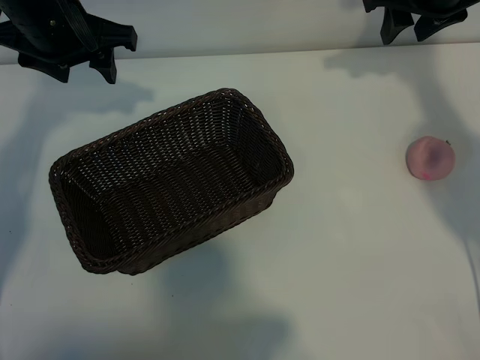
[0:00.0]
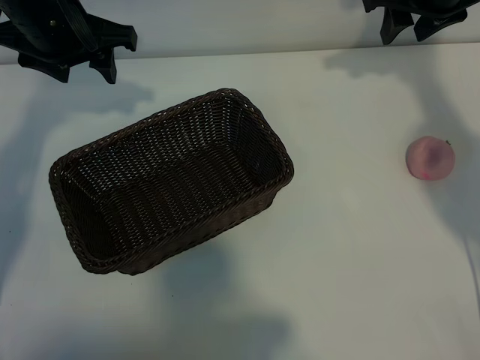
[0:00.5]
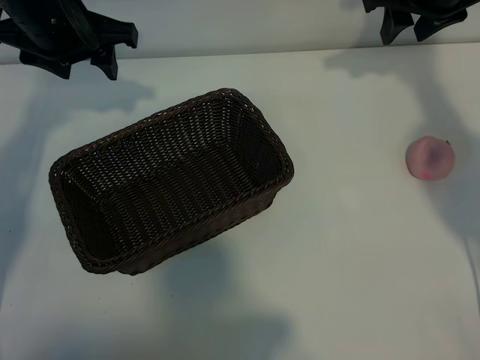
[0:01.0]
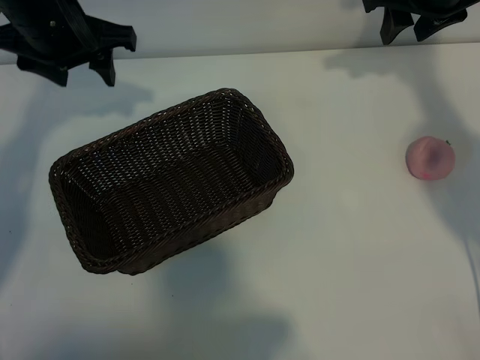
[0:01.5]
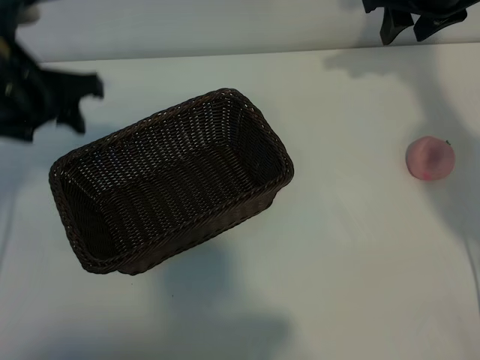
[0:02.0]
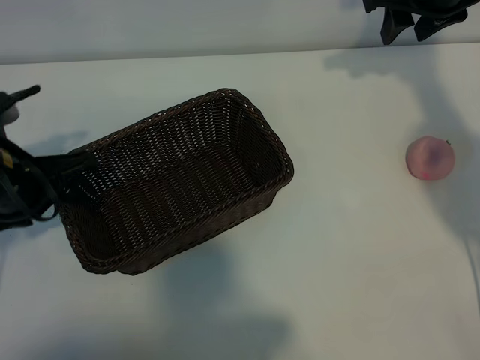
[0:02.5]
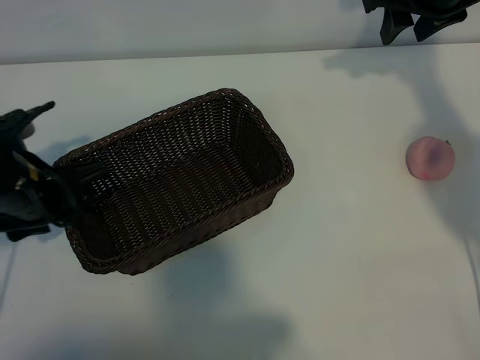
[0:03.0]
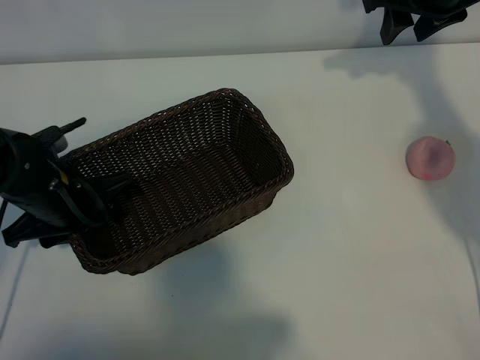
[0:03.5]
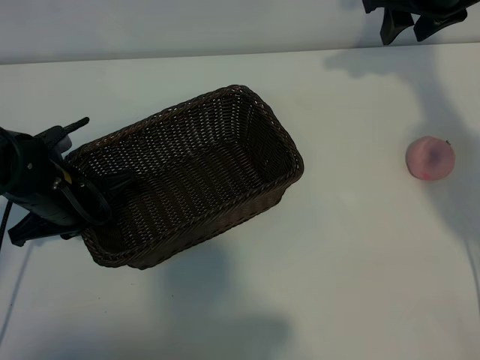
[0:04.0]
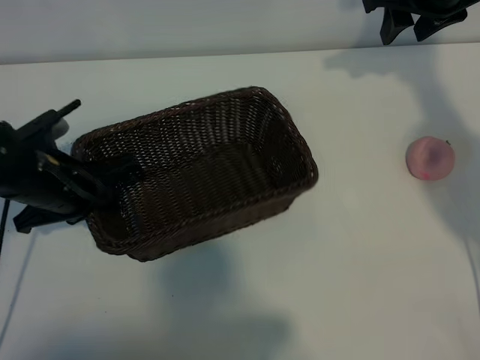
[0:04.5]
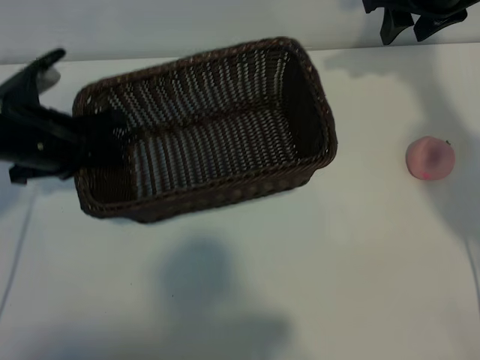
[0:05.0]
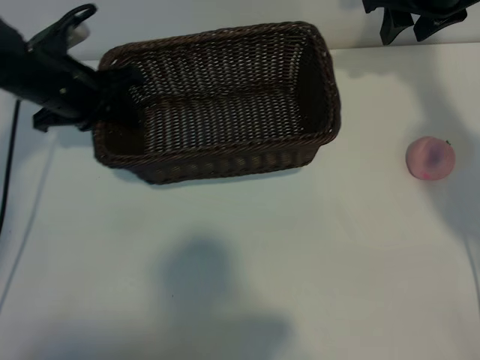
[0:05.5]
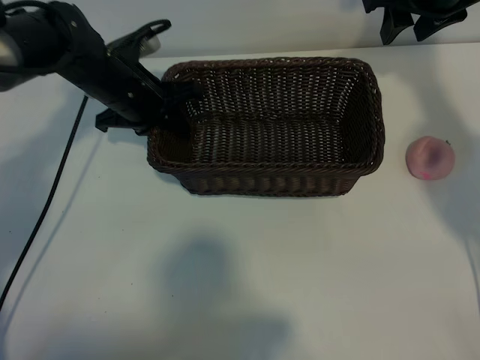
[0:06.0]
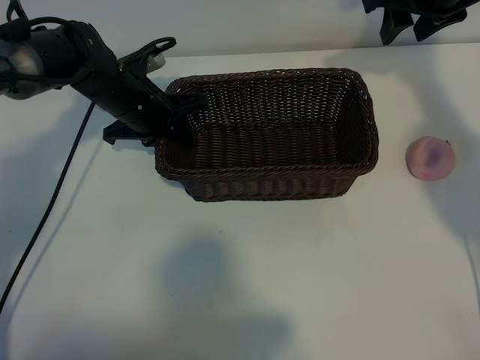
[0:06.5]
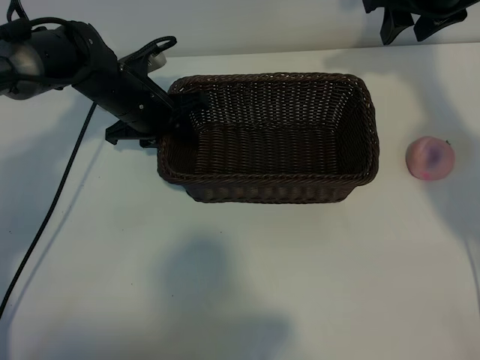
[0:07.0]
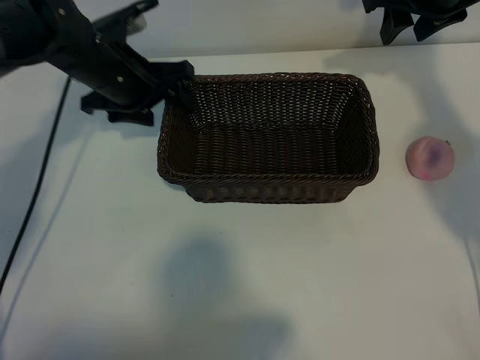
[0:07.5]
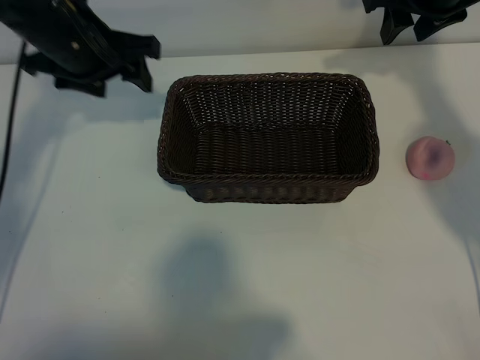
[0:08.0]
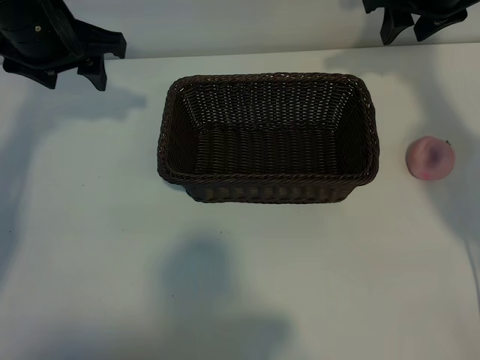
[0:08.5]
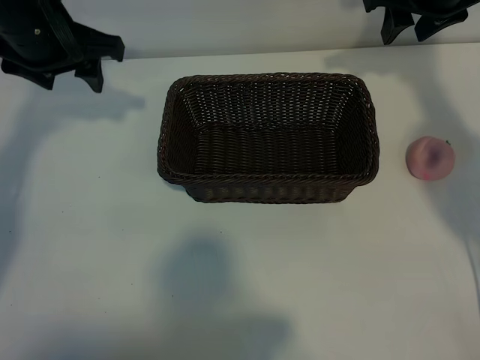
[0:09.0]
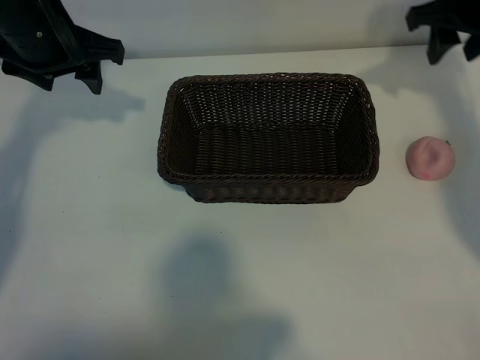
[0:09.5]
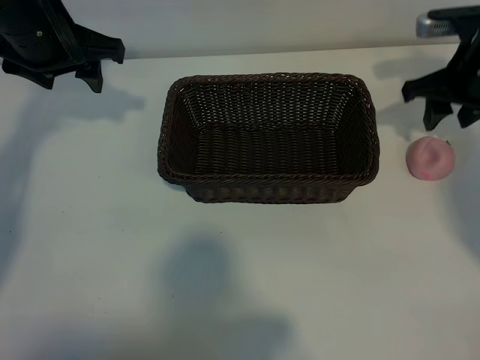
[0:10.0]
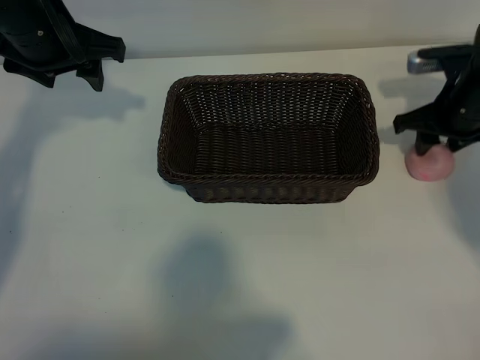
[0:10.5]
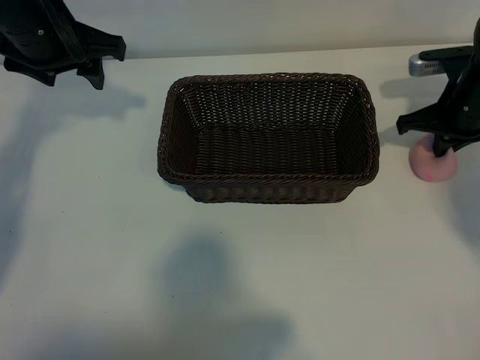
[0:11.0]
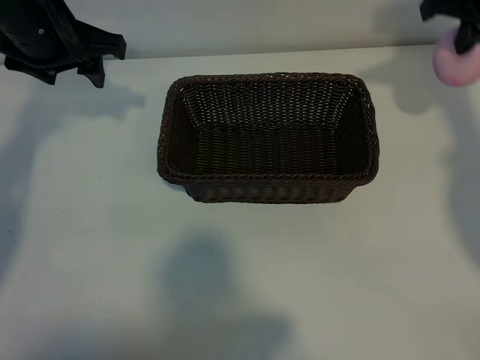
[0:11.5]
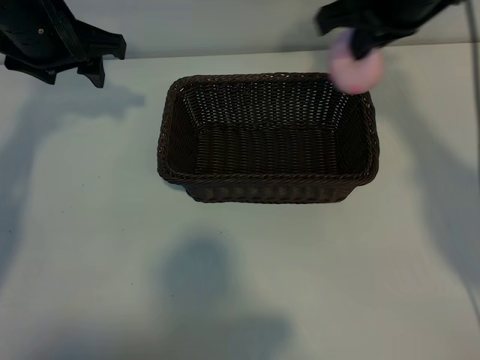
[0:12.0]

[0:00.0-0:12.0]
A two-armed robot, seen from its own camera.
Task of the whole recording: pick up the peach and put it into the basket.
Step, 0:01.5 to 0:04.0: Grasp the basket with left gripper.
Step, 0:04.5 to 0:07.0: Place the basket in the center of view with left gripper.
Step, 0:07.5 to 0:11.0: Grasp the peach with right gripper.

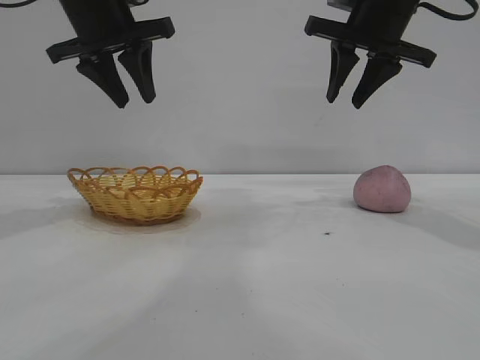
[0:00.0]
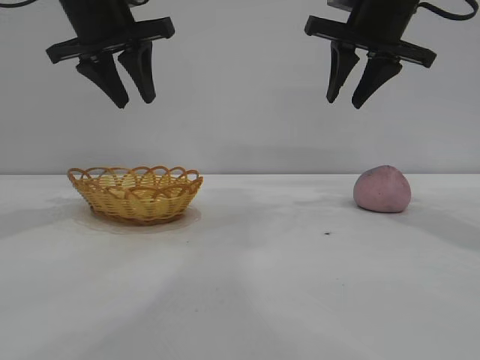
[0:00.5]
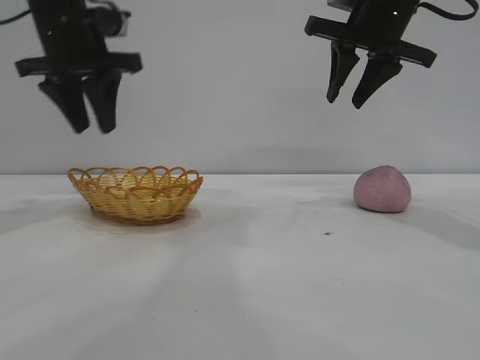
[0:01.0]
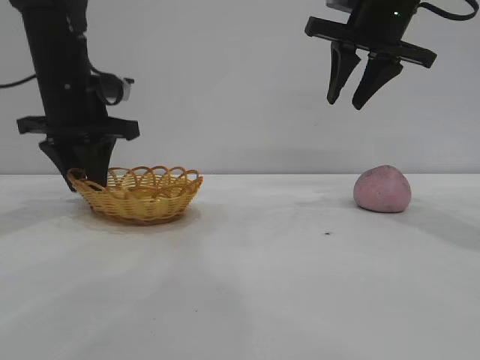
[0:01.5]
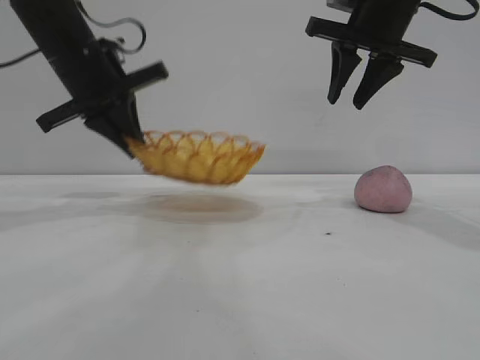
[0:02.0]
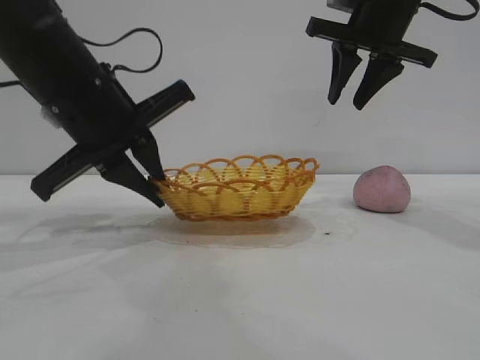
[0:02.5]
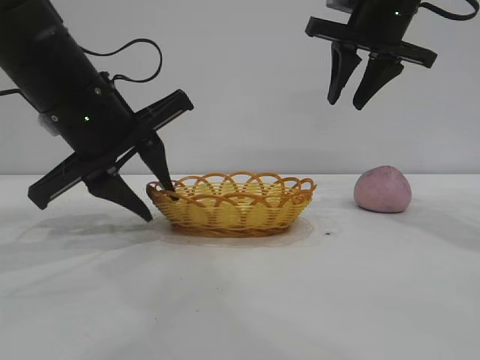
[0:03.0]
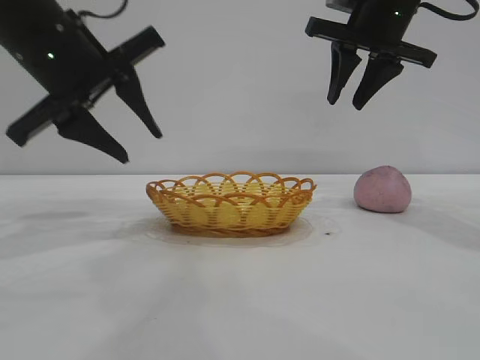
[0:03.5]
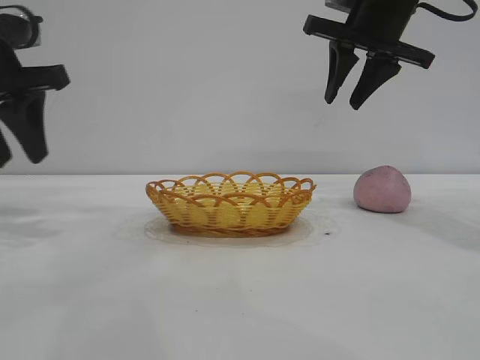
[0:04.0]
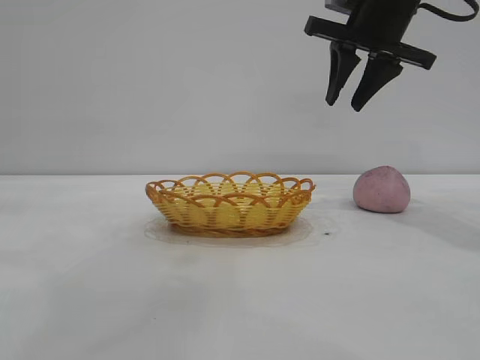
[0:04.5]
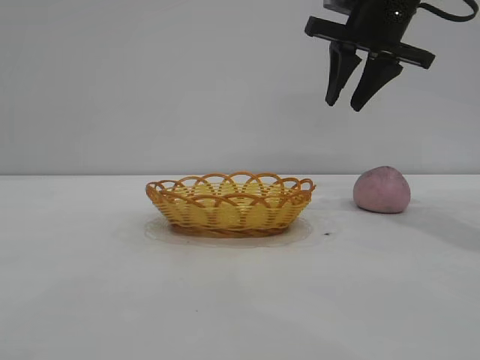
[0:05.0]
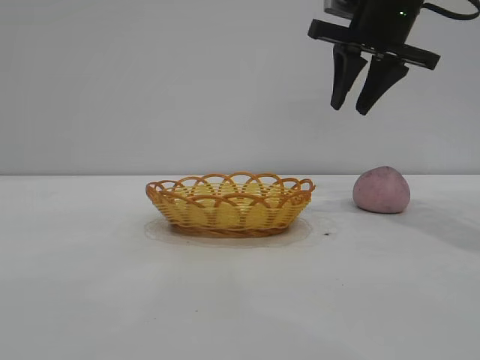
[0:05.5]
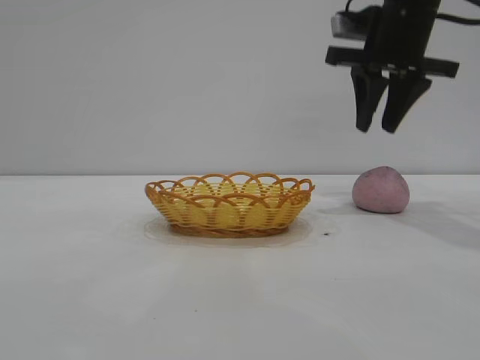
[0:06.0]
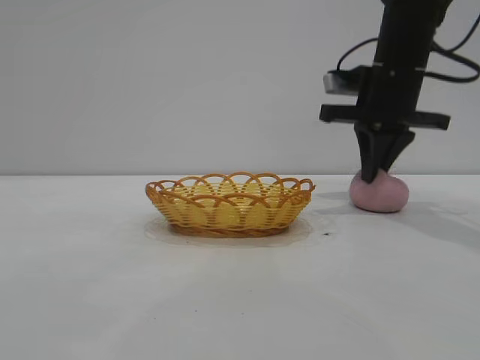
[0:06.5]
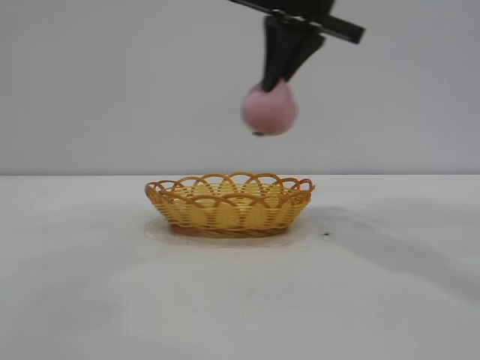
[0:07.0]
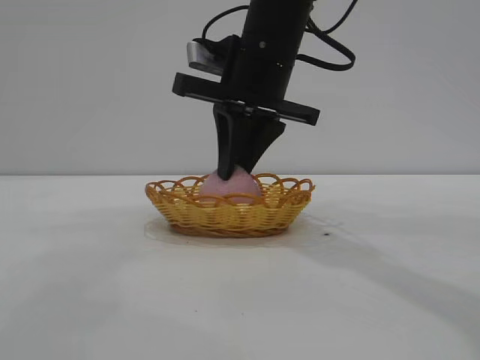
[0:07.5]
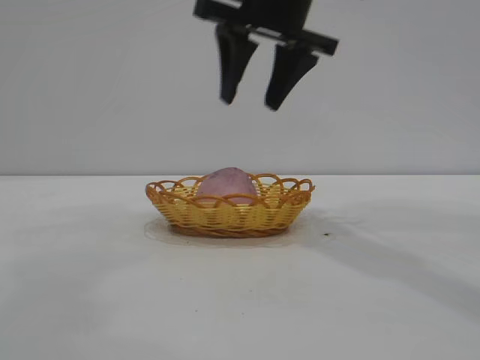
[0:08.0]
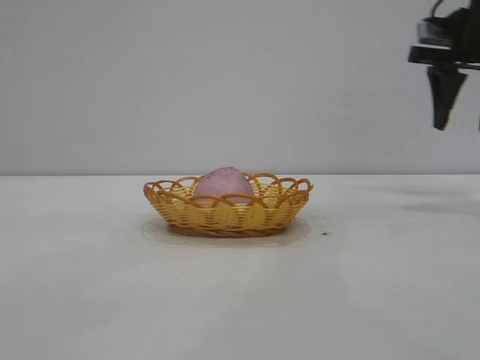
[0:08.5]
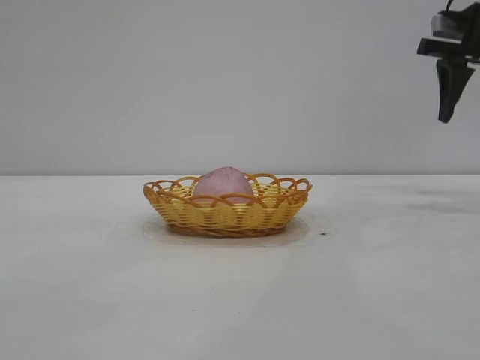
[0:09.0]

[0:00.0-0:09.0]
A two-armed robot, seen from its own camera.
Task of the whole recording: pick up the peach and put it into the basket.
Step, 0:00.0 to 0:03.5: Move the basket to the center of view.
Step, 0:04.0 to 0:06.5: Pick up the peach.
Step, 0:07.0 to 0:08.0: place the peach into the basket.
